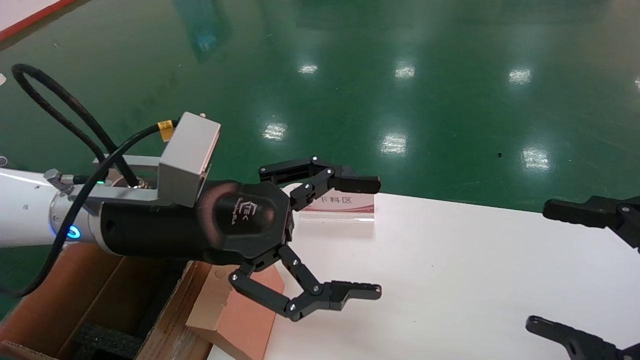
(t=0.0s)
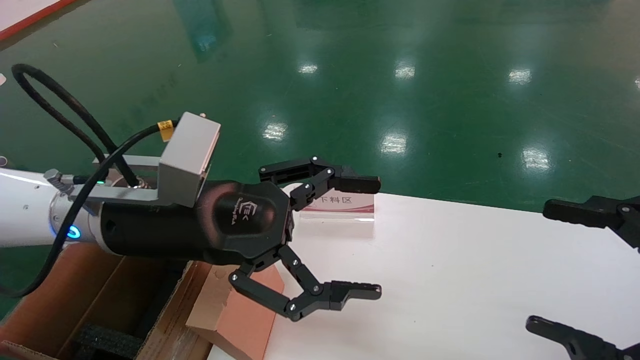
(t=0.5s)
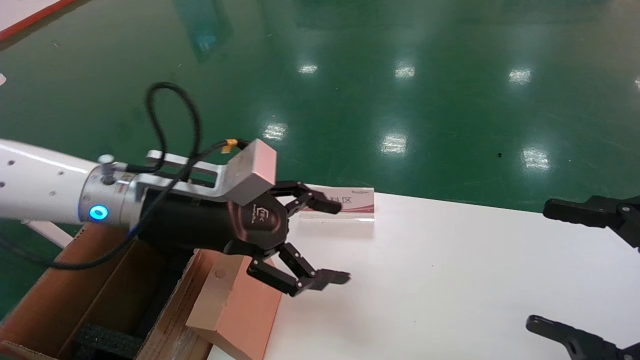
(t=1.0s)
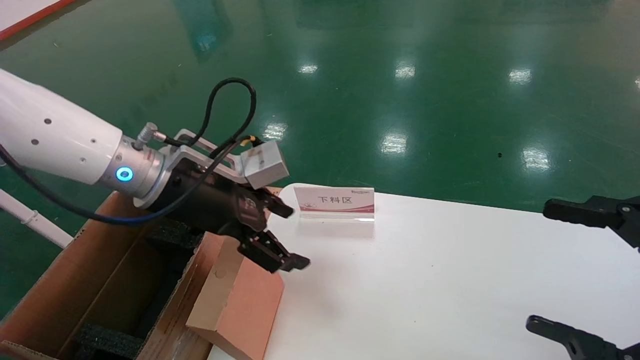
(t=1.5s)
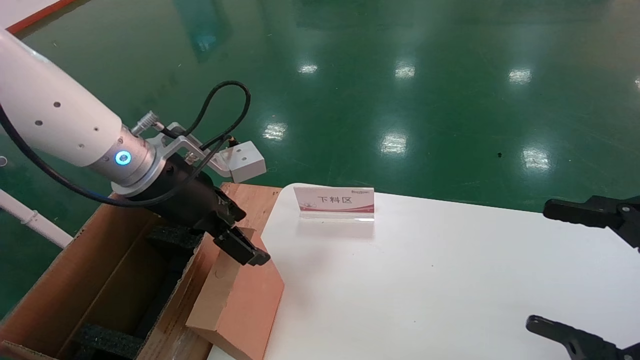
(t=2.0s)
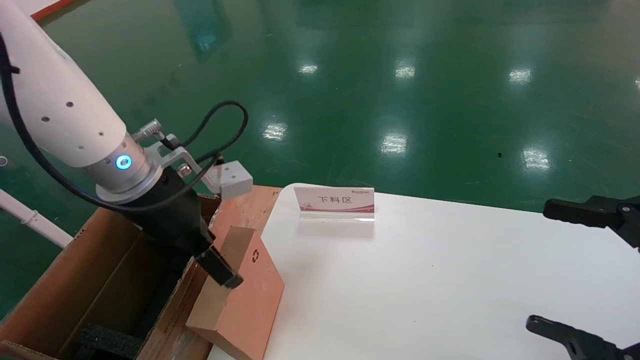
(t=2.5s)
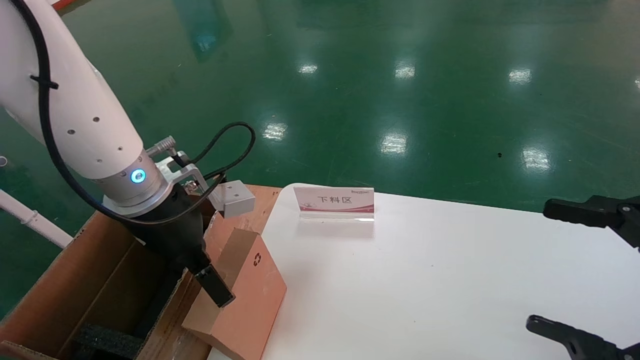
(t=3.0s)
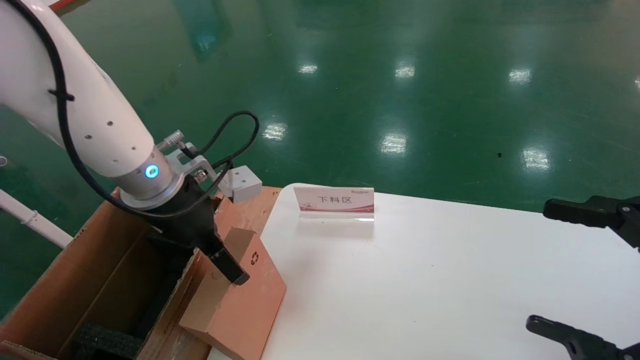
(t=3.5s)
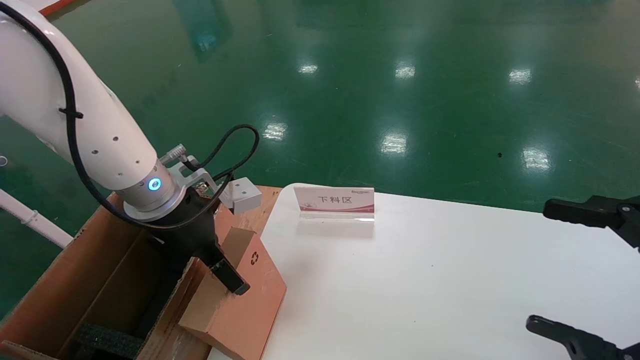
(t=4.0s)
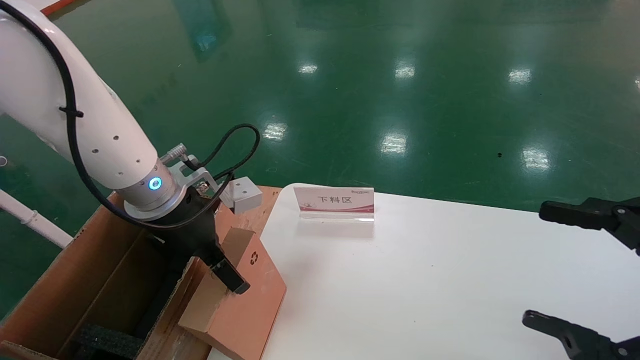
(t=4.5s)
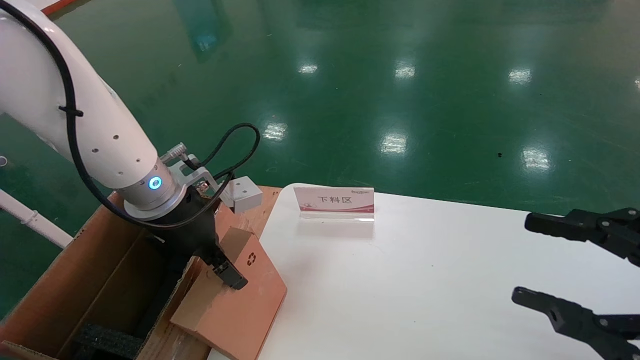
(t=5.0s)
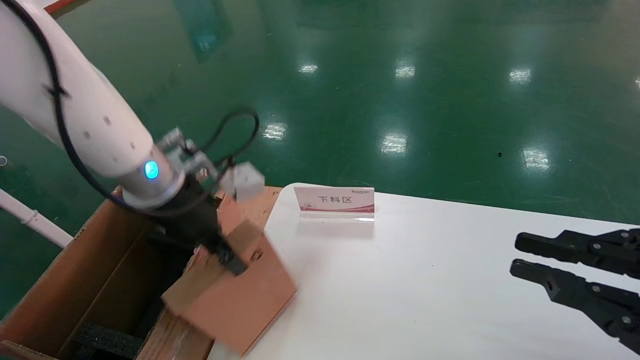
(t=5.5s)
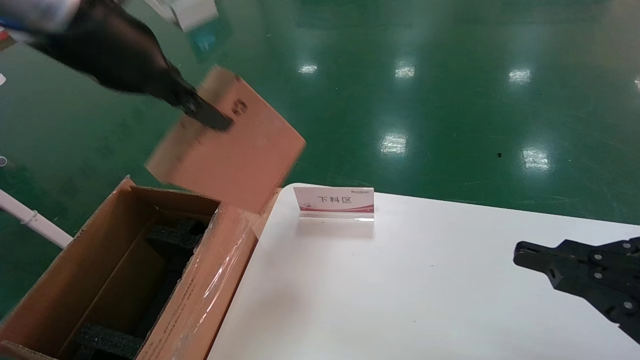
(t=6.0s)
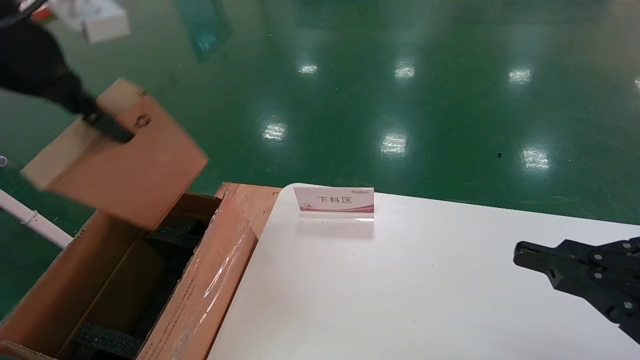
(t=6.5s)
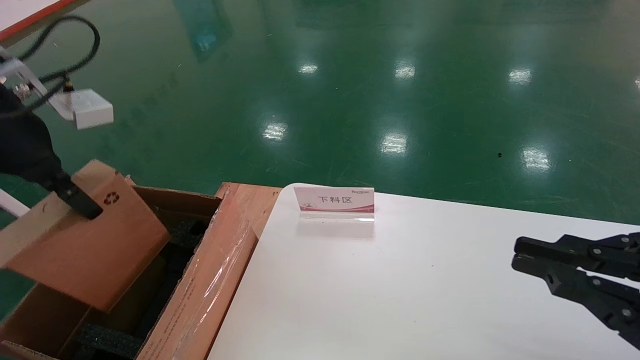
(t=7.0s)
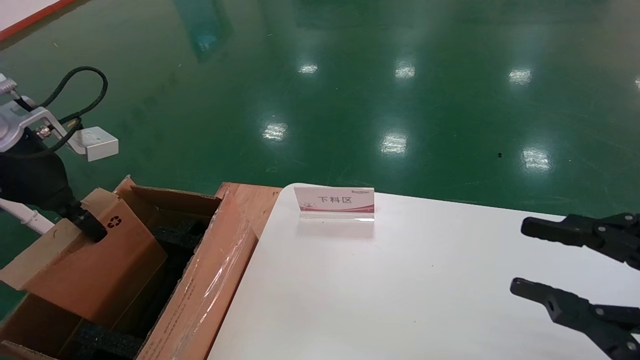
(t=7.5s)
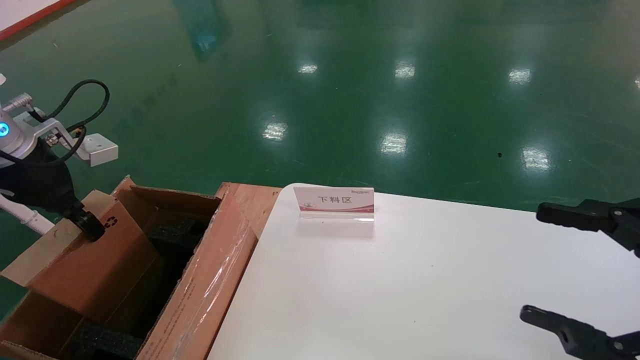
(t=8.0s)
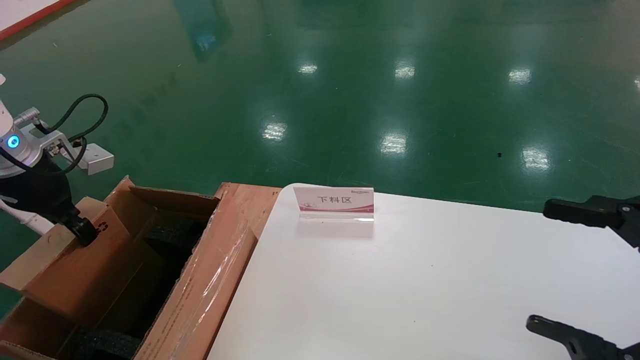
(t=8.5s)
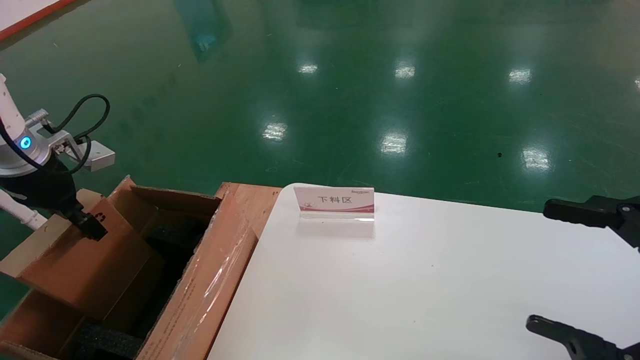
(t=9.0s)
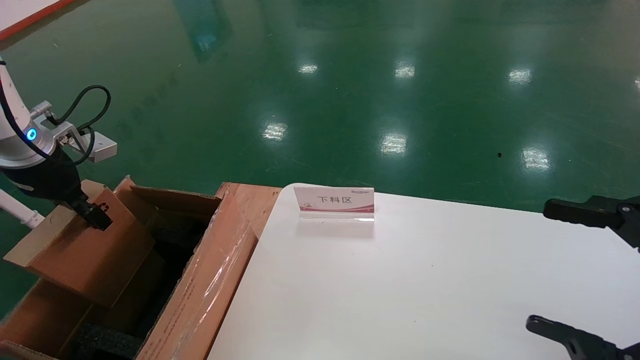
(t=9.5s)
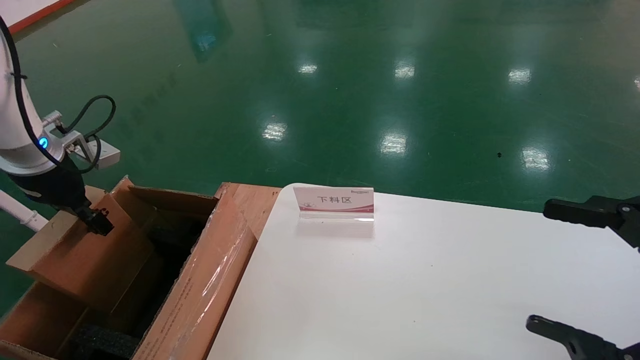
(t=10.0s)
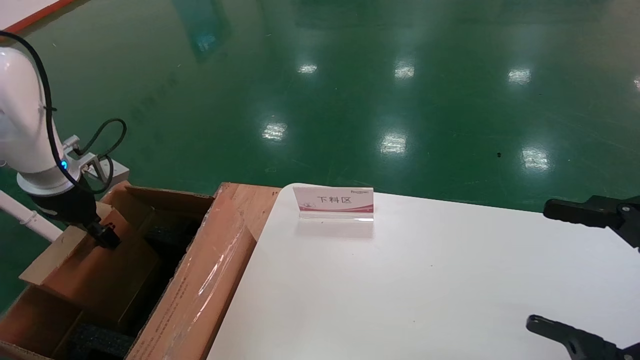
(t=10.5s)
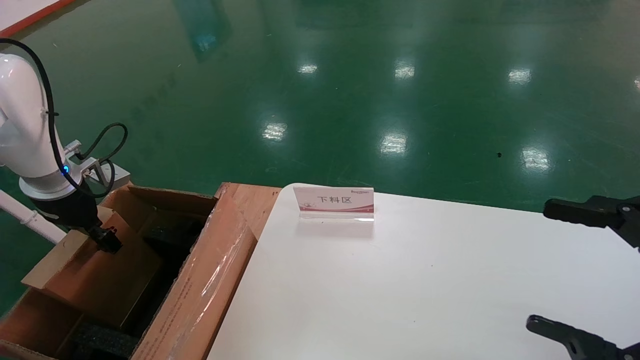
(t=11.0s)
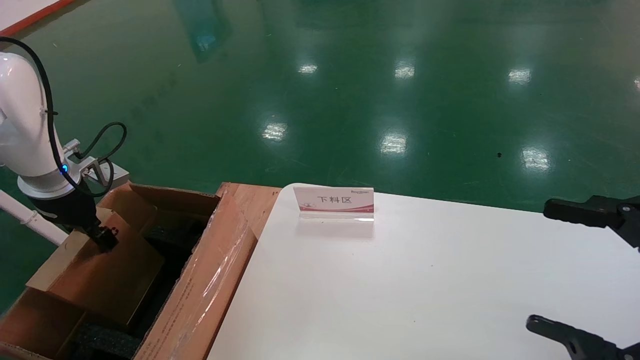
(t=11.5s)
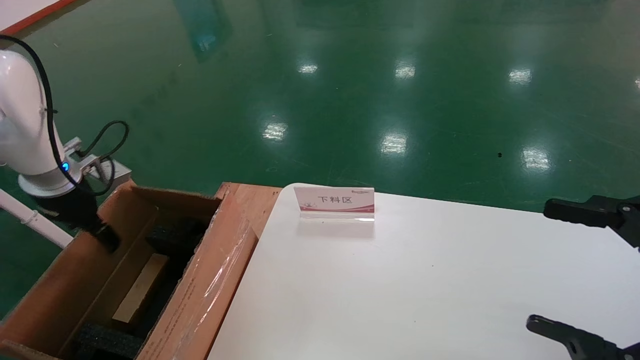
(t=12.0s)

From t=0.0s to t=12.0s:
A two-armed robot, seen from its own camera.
Task of the whole recording: pick up the small cardboard box and load it into the large cardboard box.
Step, from t=1.0s to t=5.0s: Pick up the mouse and power cord box.
Step, from t=5.5s to t=12.0s: Place the mouse and power cord box into the case.
From t=0.0s to t=2.0s: The left gripper shifts some 5 cm forward.
From t=2.0s to t=4.0s: There are only small adjustments of the grippers.
From t=4.0s to t=6.0s: The right gripper closes its fingers. The left gripper moves upward, roughly 20 cm, and closes.
From t=6.0s to t=8.0s: The right gripper opens. Meanwhile the left gripper goes about 20 cm to the left and downward.
From t=8.0s to t=10.0s: The left gripper changes place by some 5 cm.
From t=10.0s to t=12.0s: The left gripper opens.

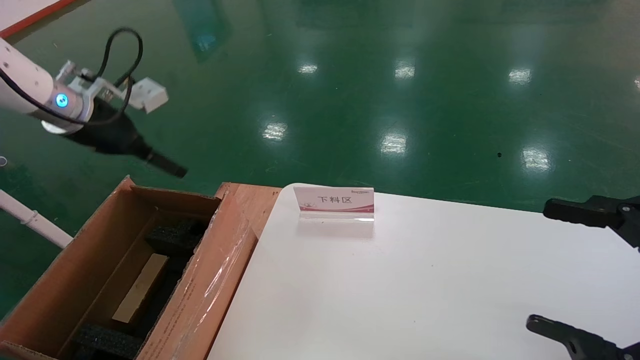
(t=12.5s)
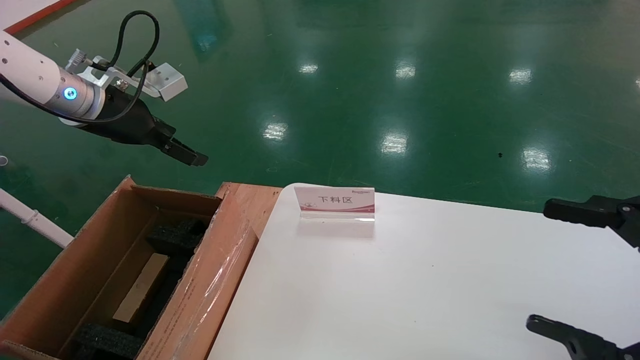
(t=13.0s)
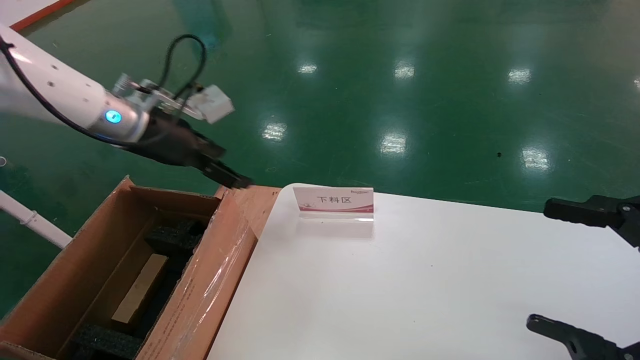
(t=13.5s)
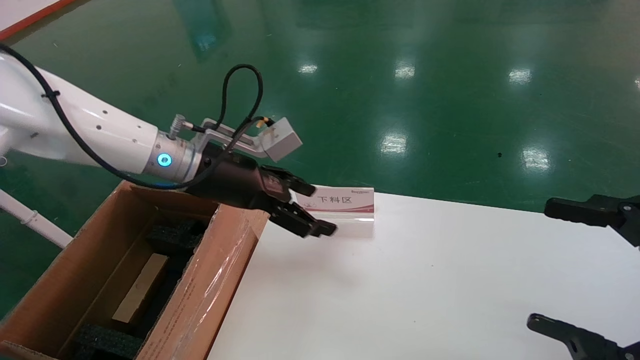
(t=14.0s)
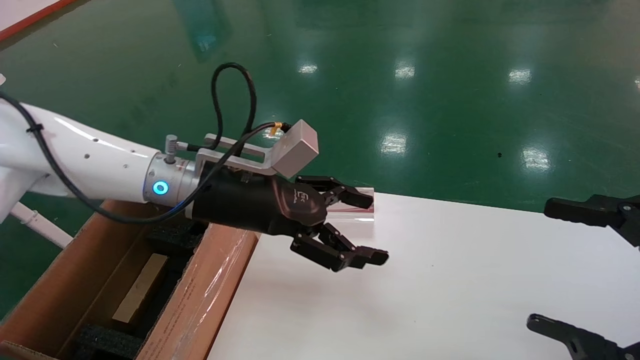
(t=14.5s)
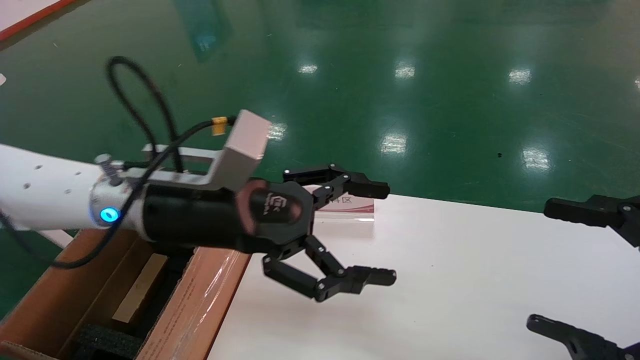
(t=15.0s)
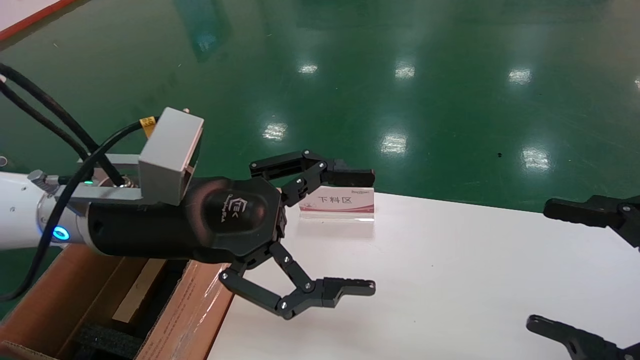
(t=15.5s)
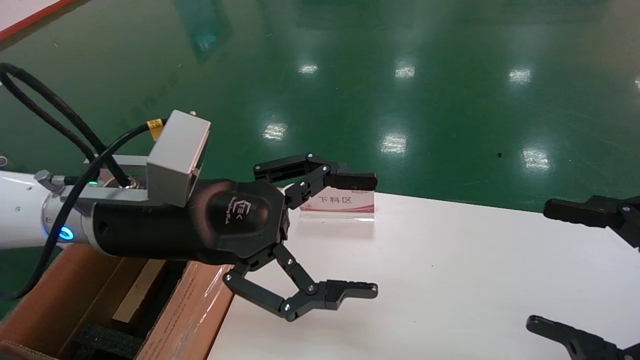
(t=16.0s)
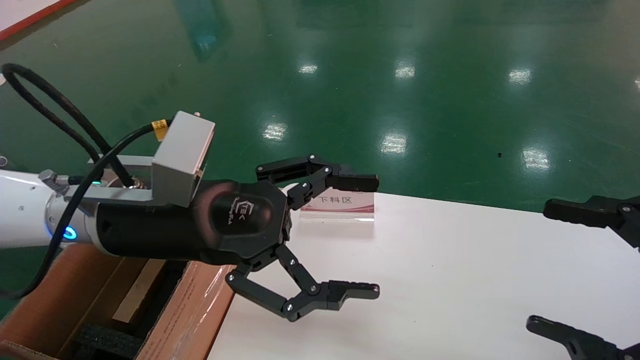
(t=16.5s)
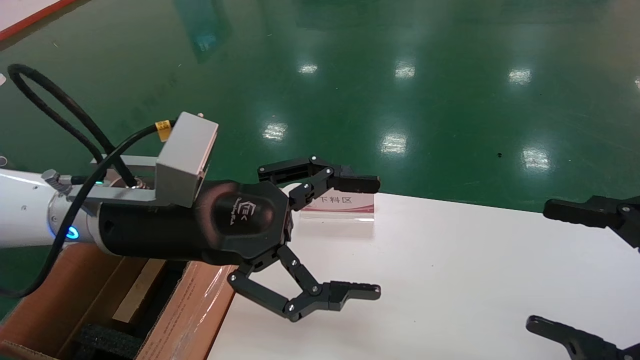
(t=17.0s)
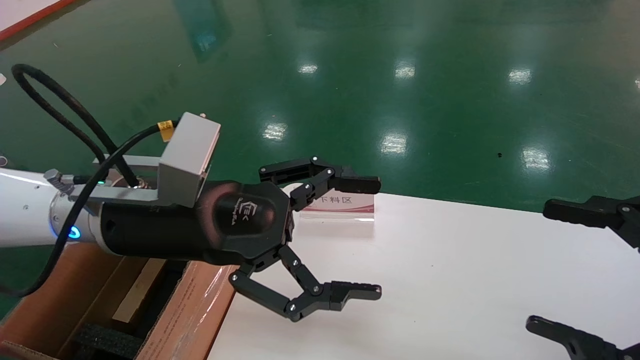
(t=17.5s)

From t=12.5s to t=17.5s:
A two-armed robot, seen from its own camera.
Task of the whole recording: pick up the small cardboard box and load it into the large cardboard box.
From t=12.5s to t=15.0s: The left gripper heads to the right and backward, covering some 25 cm.
From t=15.0s to t=17.5s: There are only small adjustments of the grippers.
